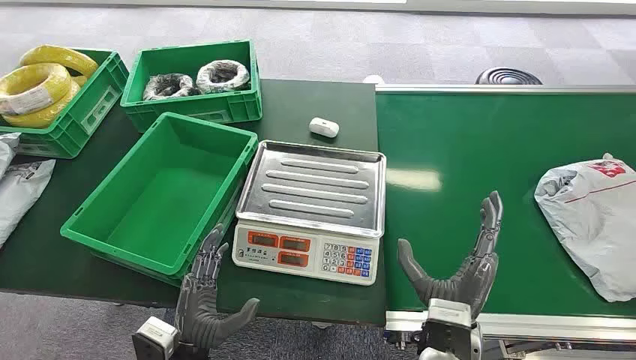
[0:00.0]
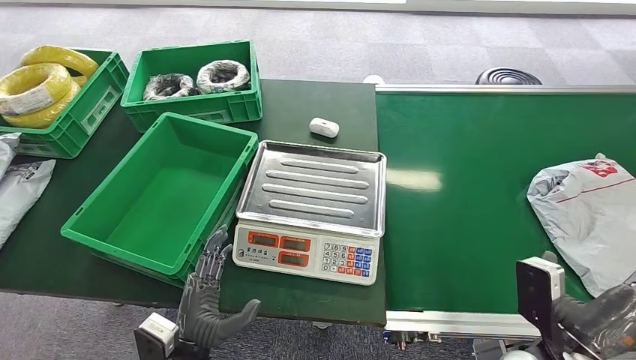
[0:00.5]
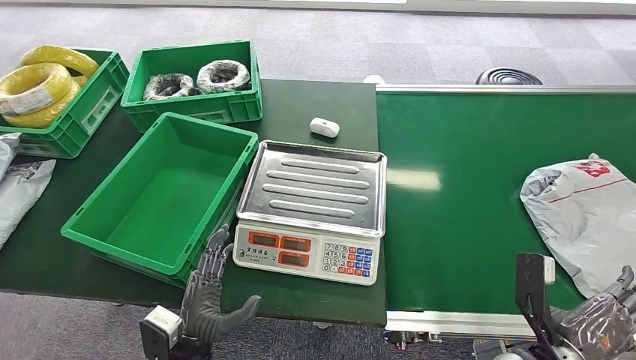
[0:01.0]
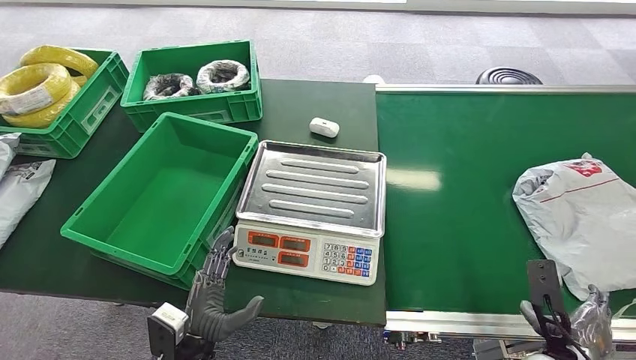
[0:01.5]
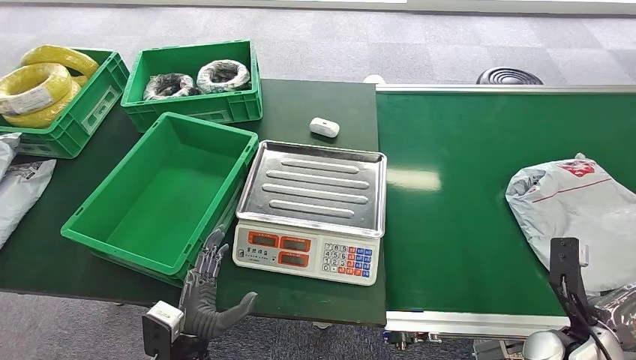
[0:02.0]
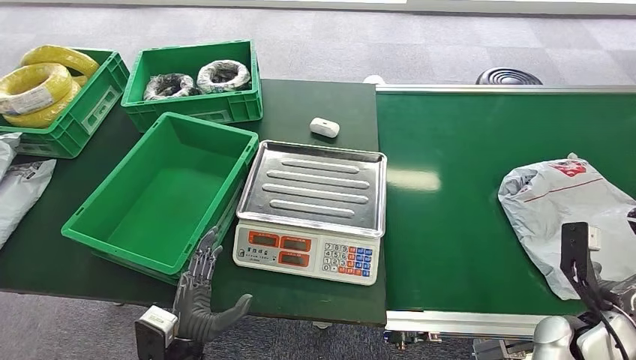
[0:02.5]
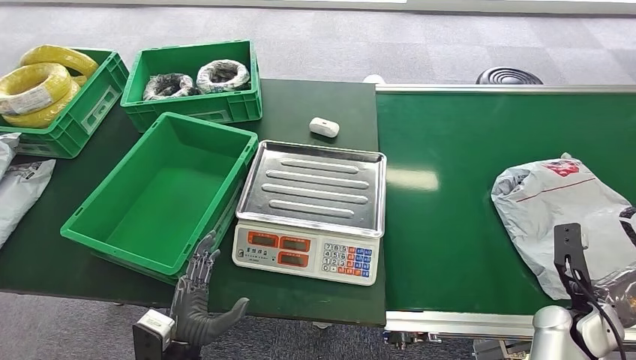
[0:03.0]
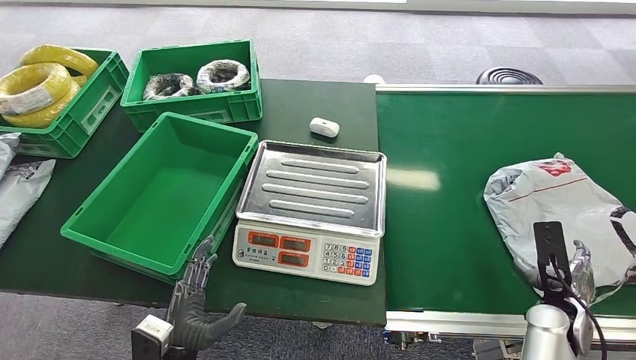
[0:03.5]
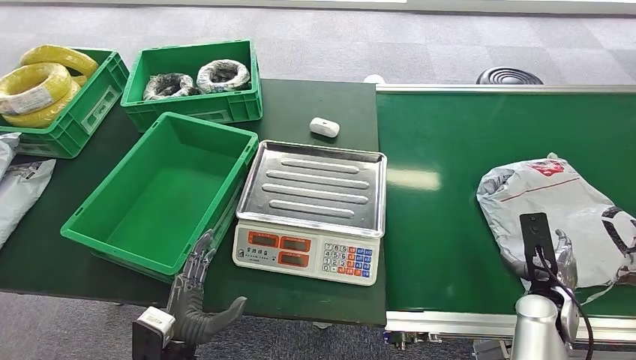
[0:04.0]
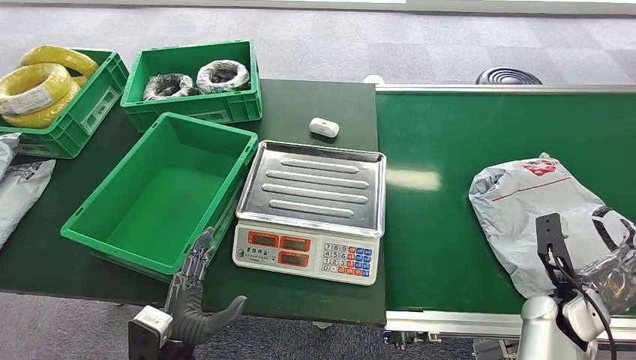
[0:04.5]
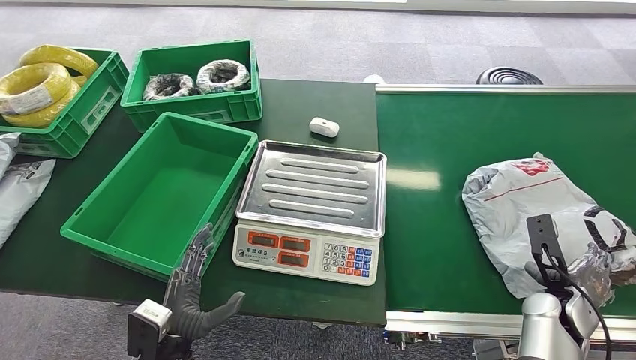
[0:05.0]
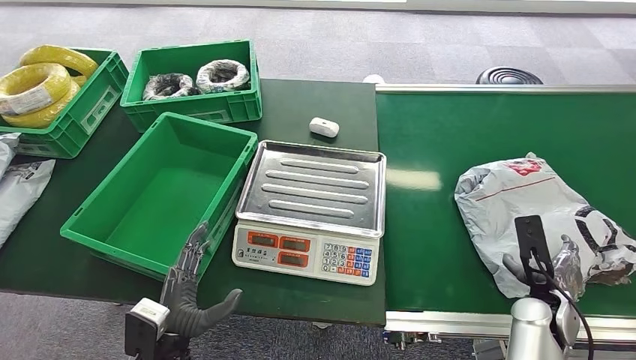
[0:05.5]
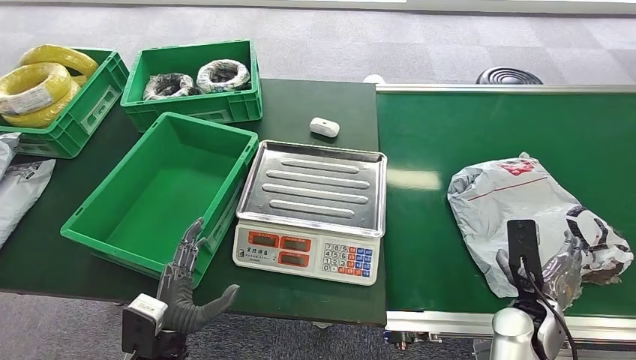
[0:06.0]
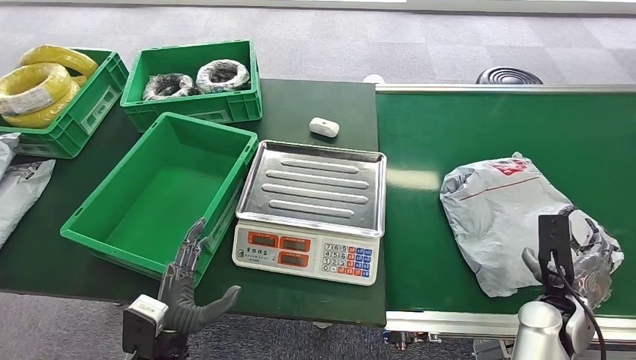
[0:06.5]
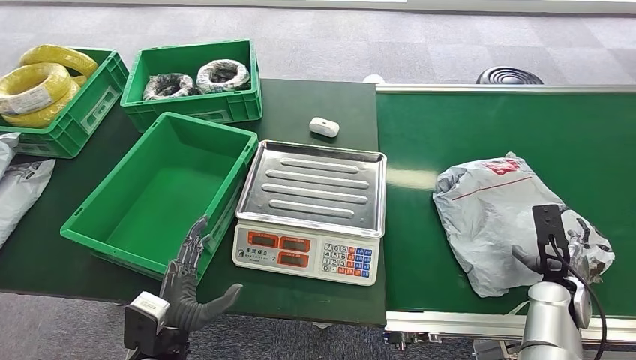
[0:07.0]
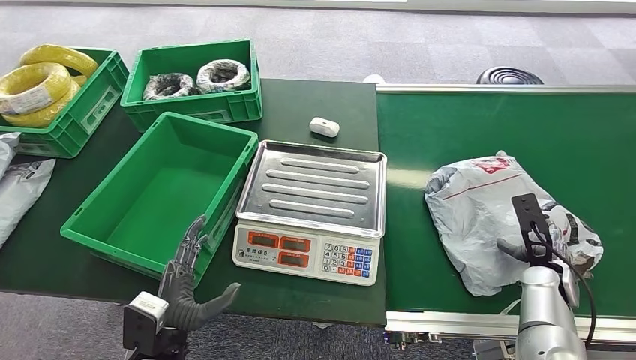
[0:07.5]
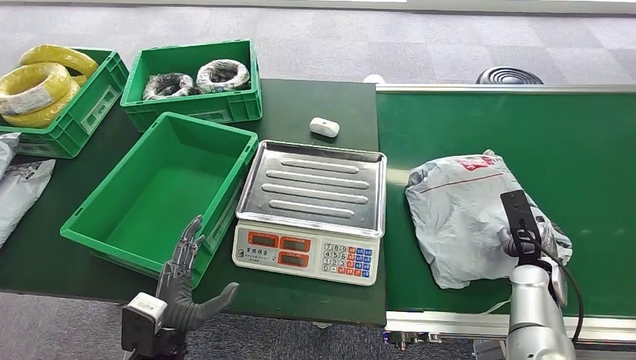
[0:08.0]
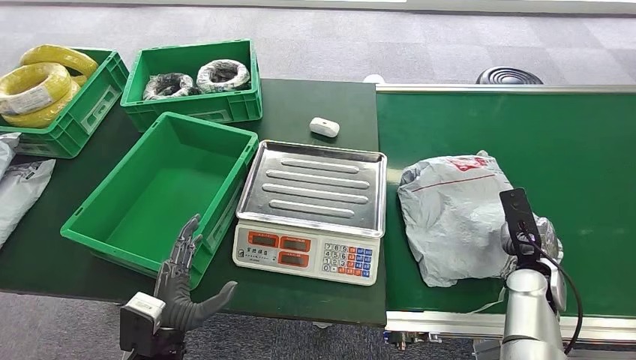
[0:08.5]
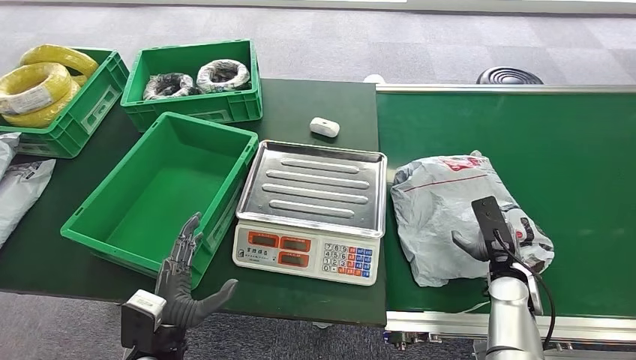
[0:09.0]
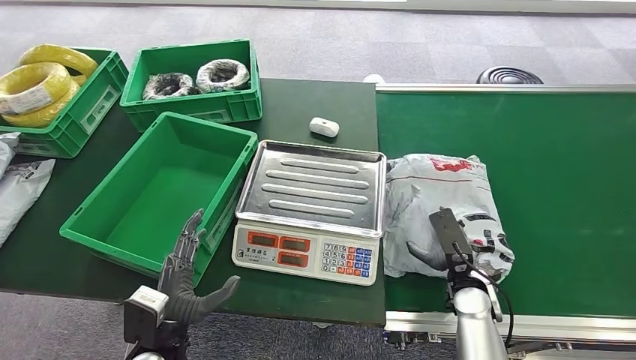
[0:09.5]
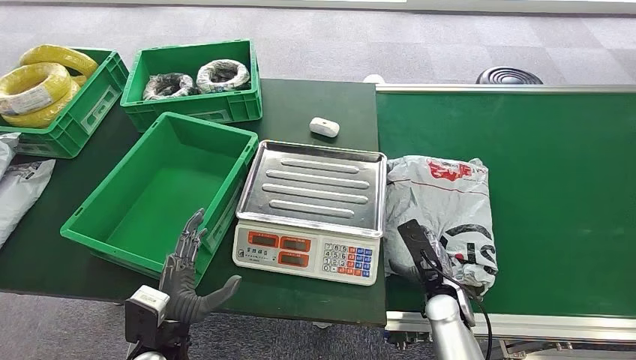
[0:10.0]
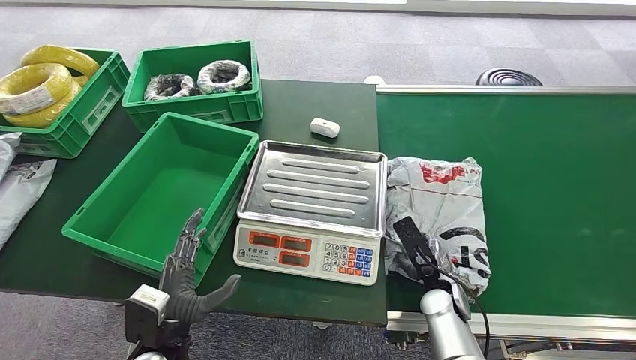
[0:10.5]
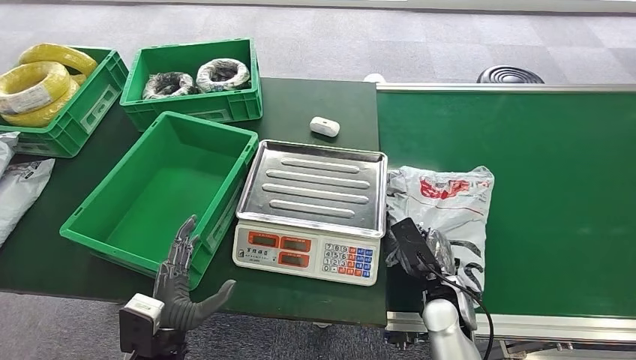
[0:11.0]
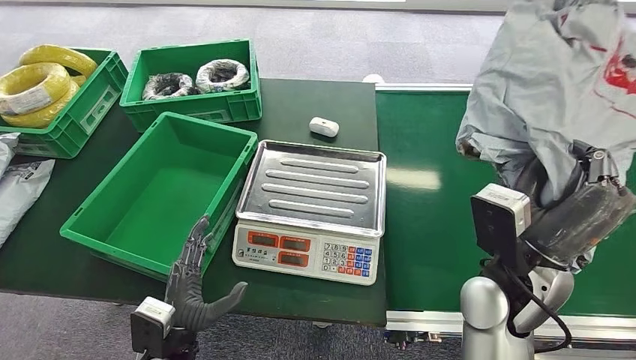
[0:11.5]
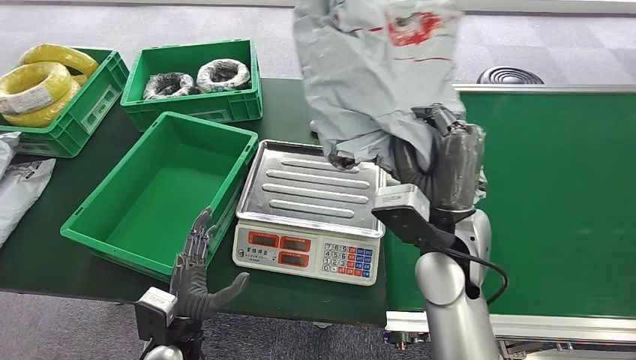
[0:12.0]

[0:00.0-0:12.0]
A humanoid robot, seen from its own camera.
Step, 0:00.0 to 0:11.0: Pick up the package from the conveyor belt.
0:02.0 to 0:04.0: The right hand heads forward, covering roughly 5 cm.
0:04.0 to 0:06.0: The right hand is displaced to the left by some 5 cm.
0:06.0 to 0:08.0: The right hand moves forward and to the right, approximately 10 cm.
0:08.0 to 0:10.0: The right hand heads to the left, covering approximately 15 cm.

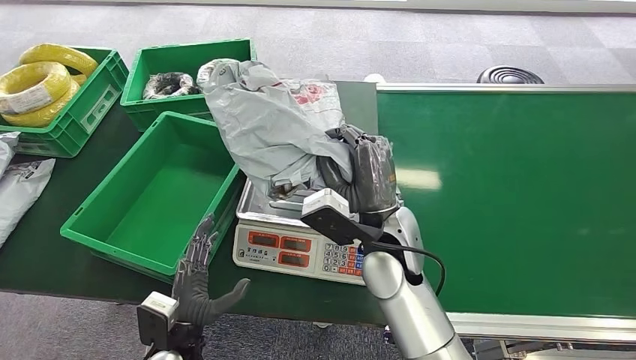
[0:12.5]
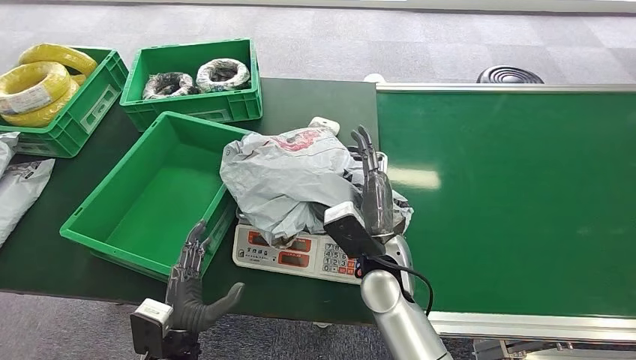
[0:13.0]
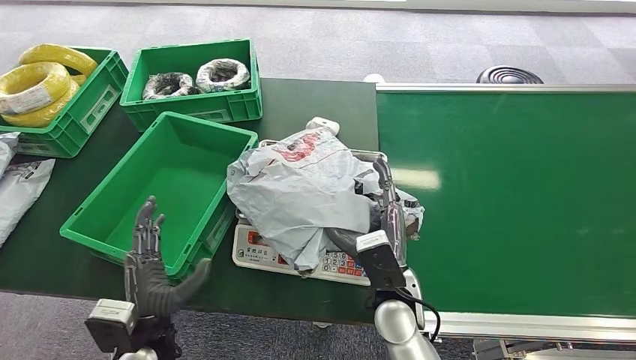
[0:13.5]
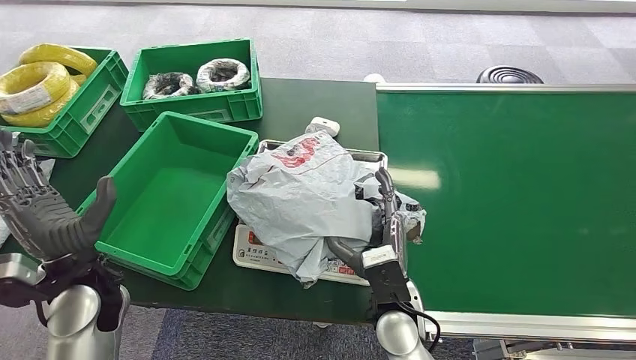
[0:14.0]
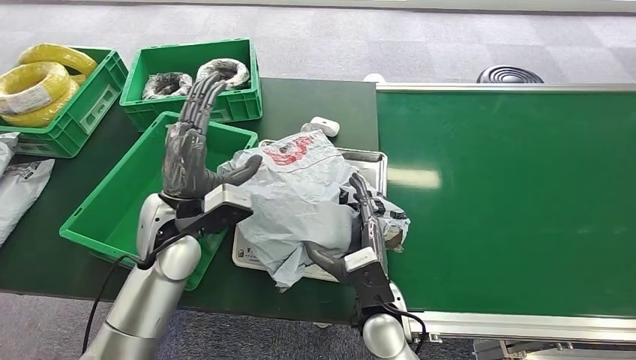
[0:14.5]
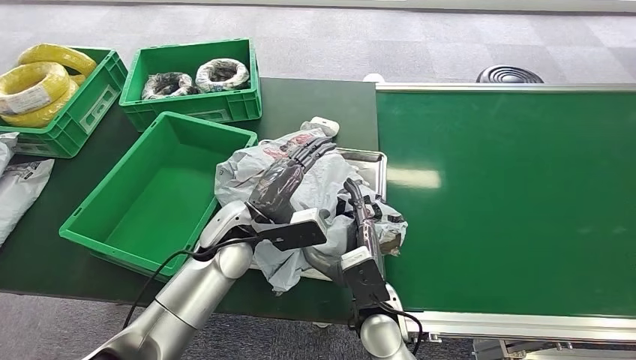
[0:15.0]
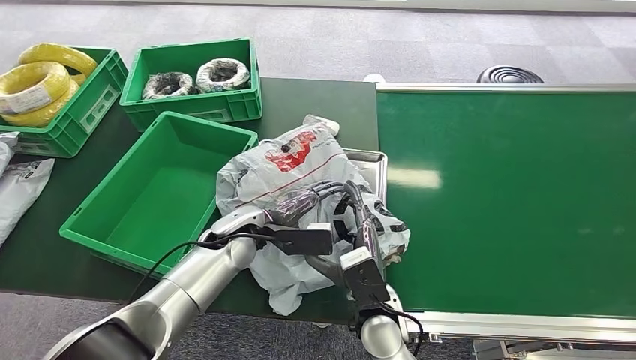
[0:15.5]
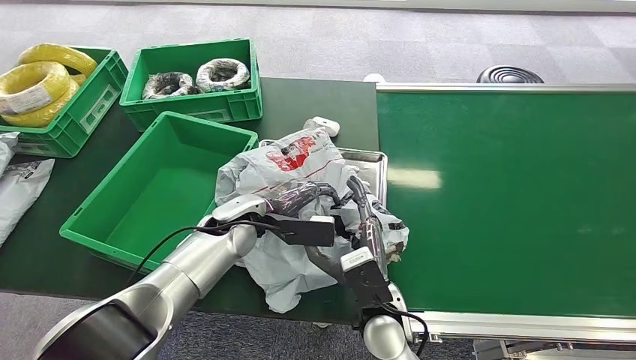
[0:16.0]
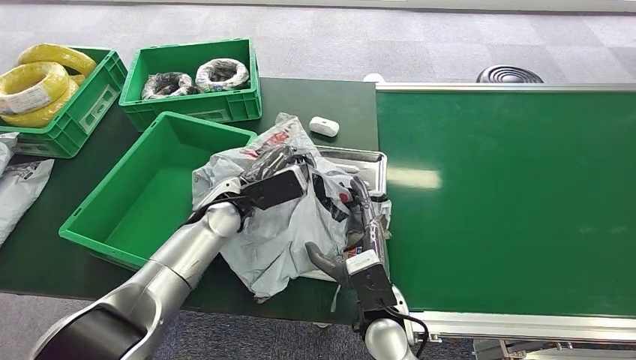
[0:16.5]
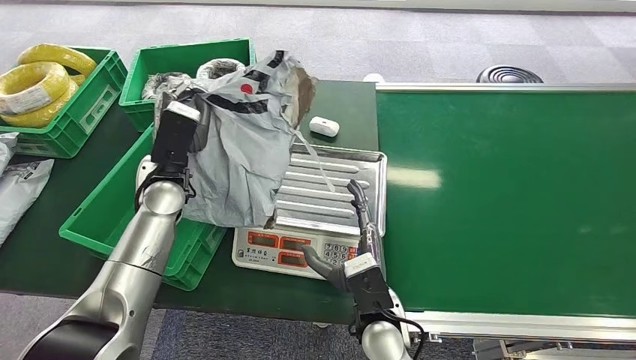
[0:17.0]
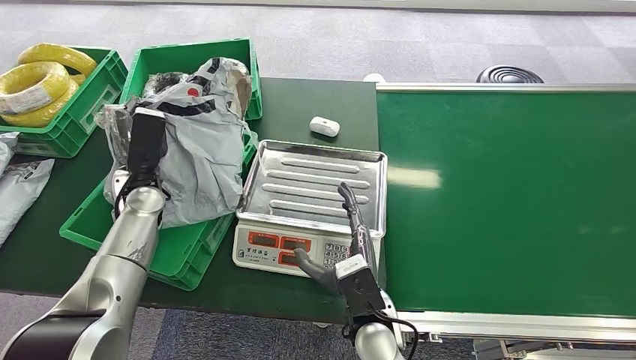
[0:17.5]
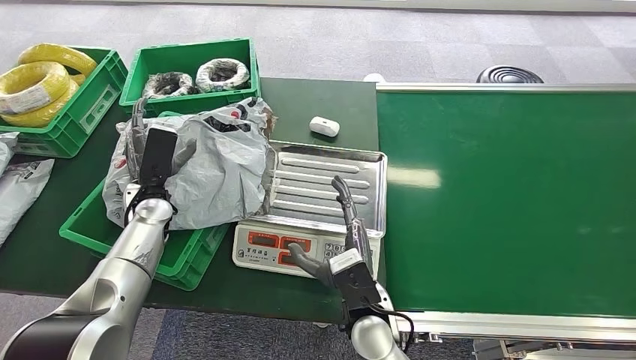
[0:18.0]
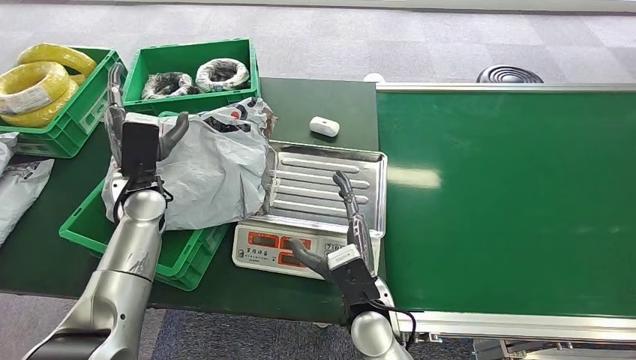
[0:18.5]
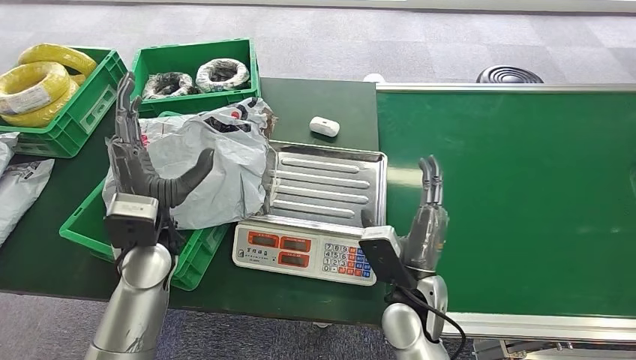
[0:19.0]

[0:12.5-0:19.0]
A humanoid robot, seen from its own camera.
Step, 0:12.5 to 0:14.0: Place the package onto the inbound machine.
Step, 0:14.5 to 0:16.5: Pick up the package from the inbound machine.
Step, 0:17.5 to 0:19.0: Place the package into the parcel locker.
0:14.5 to 0:17.0: The left hand travels forward by roughly 10 cm, and travels to the right and back again, some 5 cm each way.
